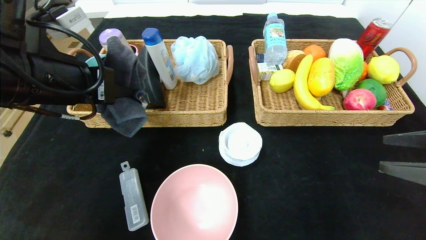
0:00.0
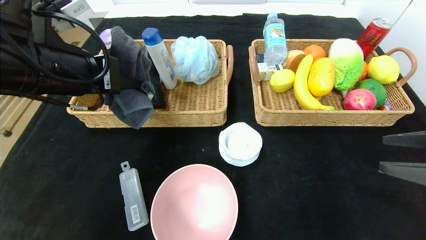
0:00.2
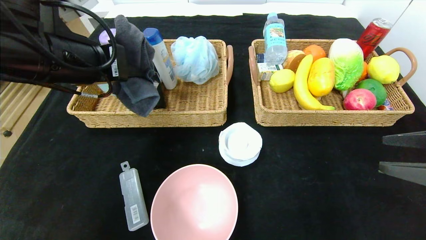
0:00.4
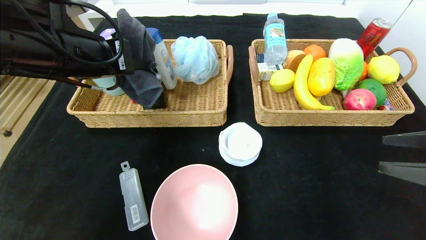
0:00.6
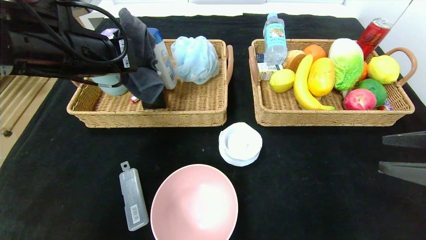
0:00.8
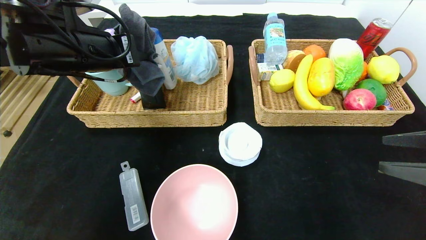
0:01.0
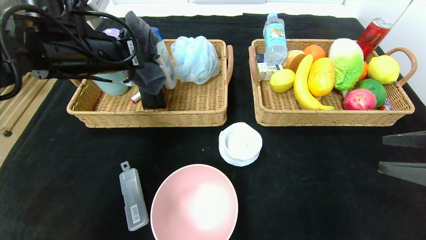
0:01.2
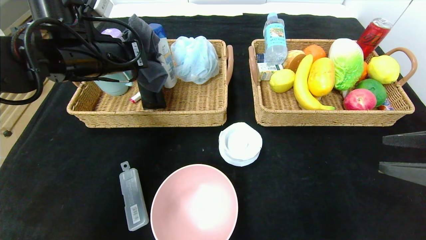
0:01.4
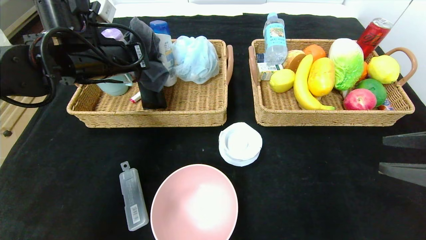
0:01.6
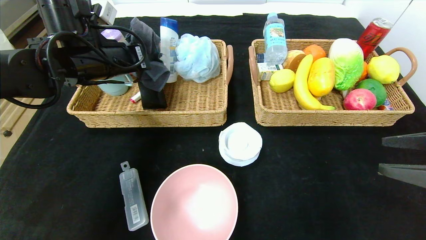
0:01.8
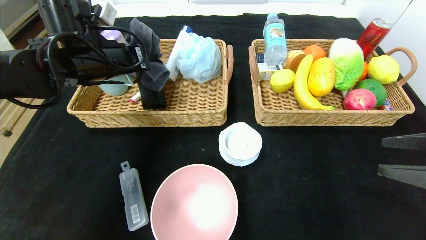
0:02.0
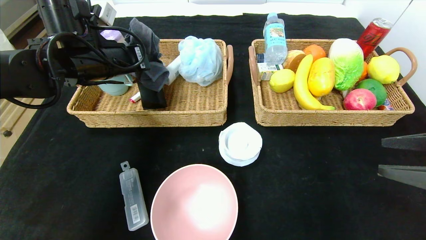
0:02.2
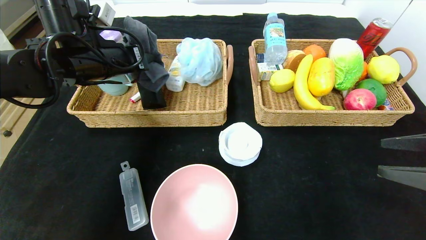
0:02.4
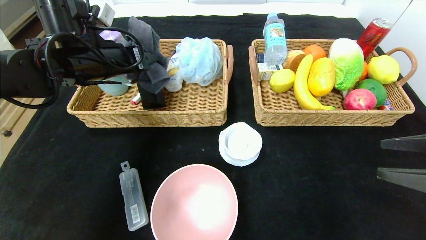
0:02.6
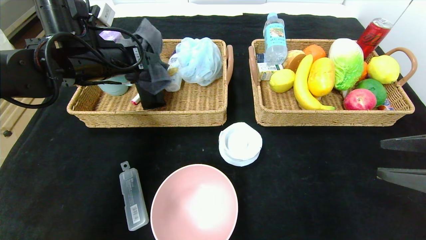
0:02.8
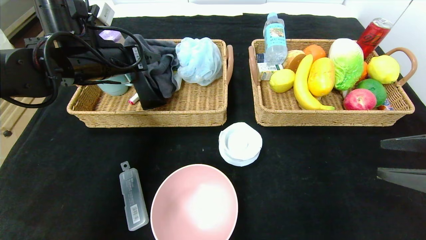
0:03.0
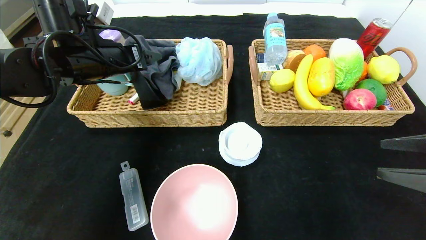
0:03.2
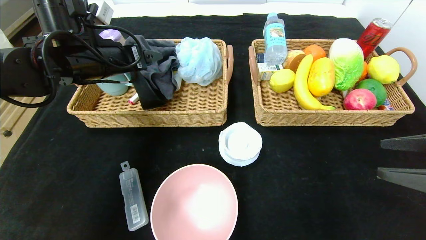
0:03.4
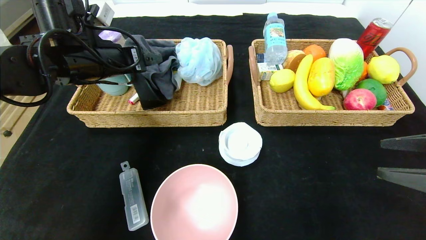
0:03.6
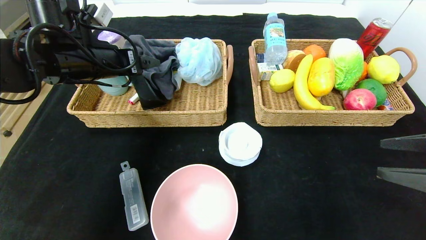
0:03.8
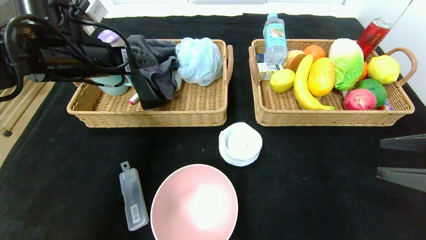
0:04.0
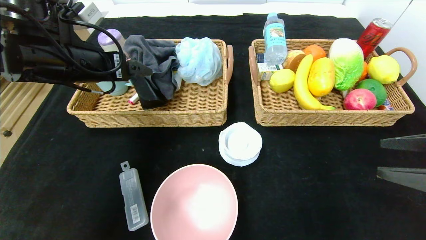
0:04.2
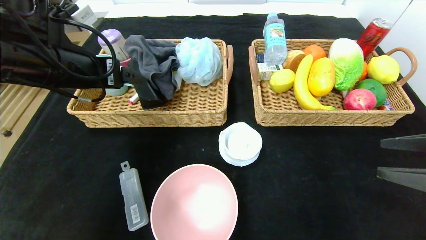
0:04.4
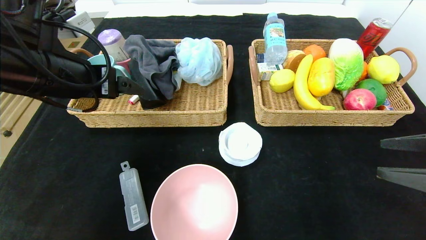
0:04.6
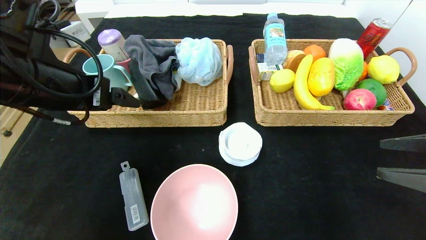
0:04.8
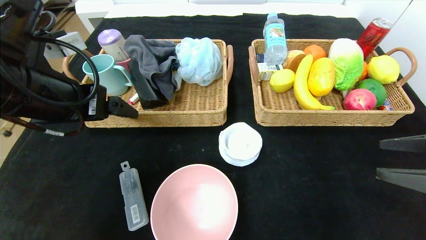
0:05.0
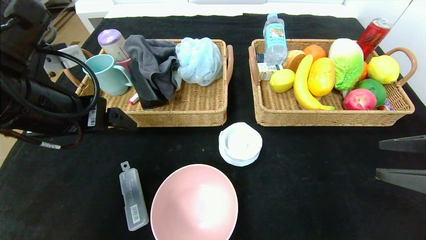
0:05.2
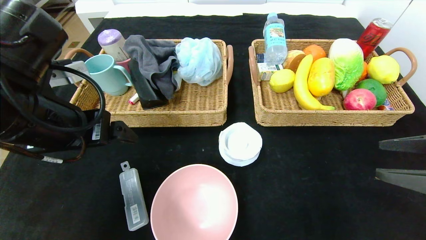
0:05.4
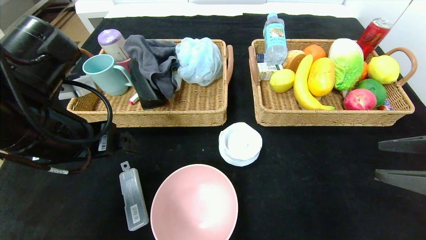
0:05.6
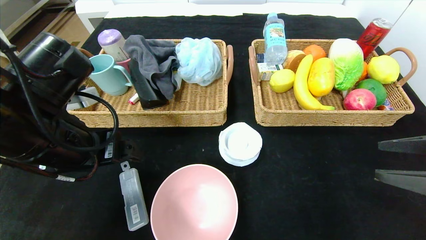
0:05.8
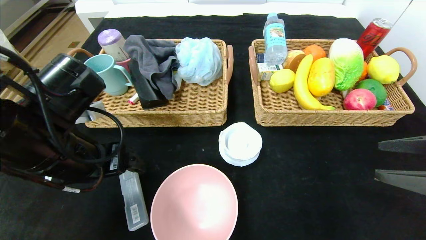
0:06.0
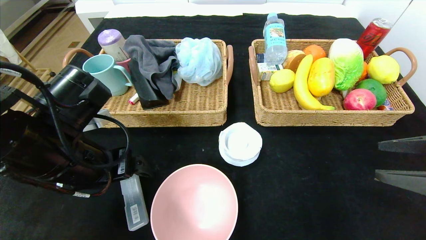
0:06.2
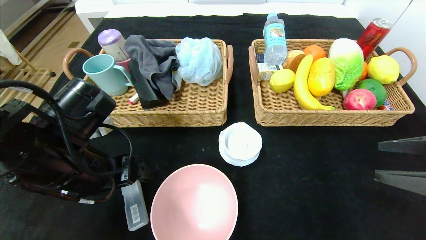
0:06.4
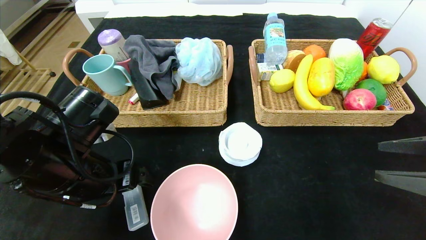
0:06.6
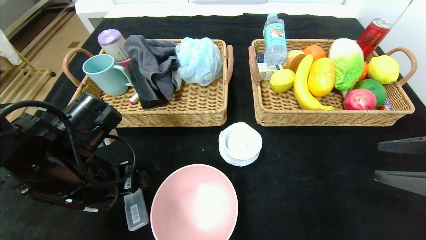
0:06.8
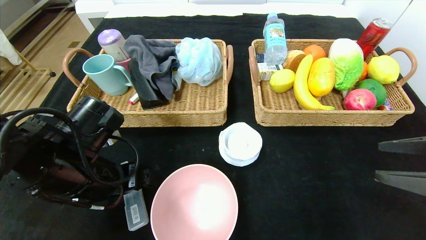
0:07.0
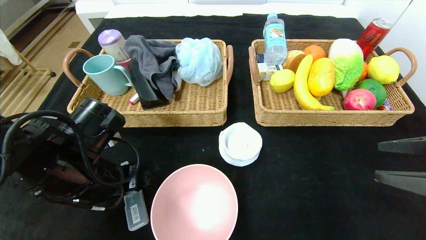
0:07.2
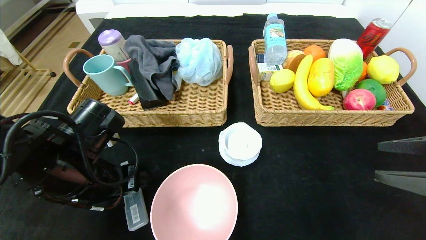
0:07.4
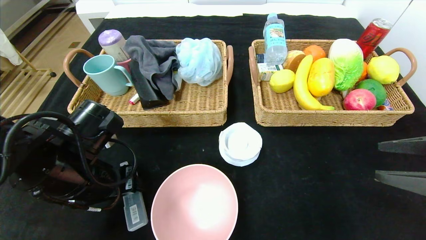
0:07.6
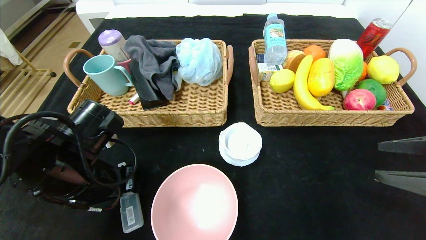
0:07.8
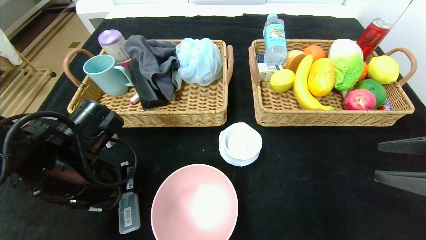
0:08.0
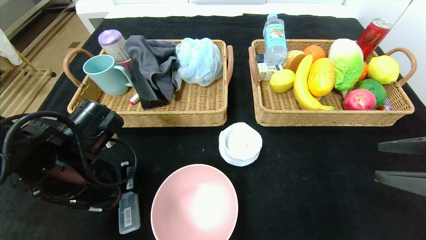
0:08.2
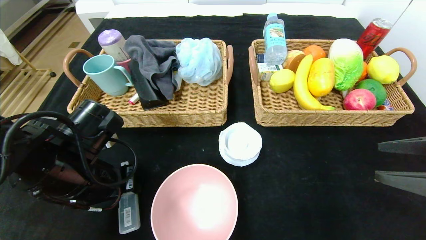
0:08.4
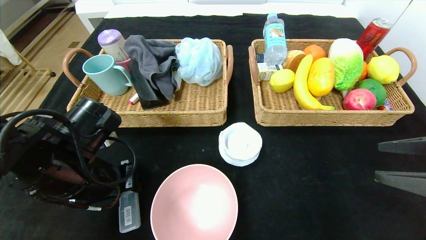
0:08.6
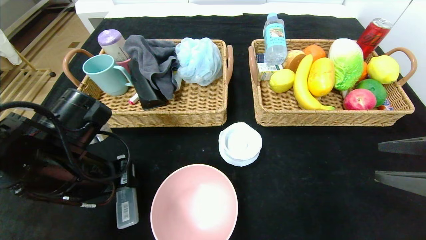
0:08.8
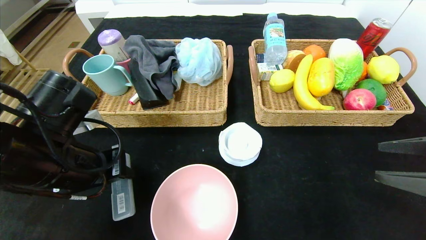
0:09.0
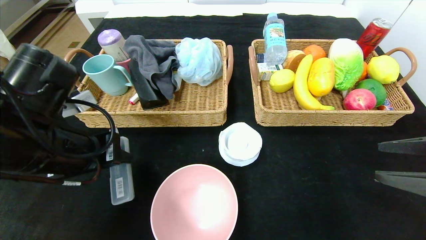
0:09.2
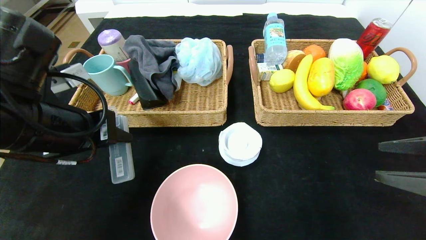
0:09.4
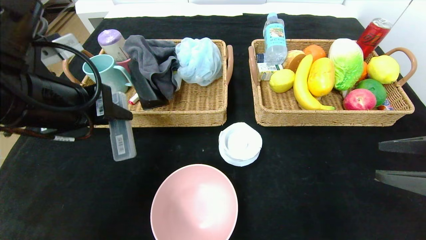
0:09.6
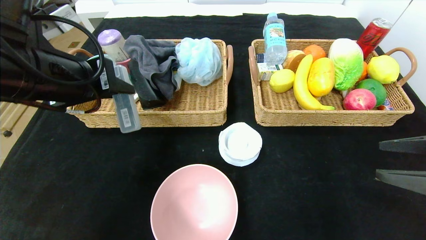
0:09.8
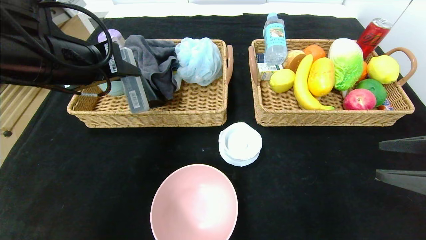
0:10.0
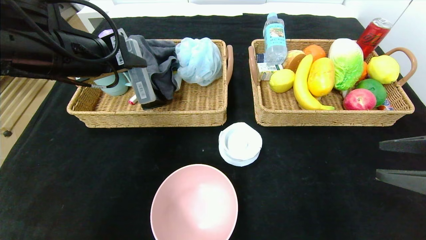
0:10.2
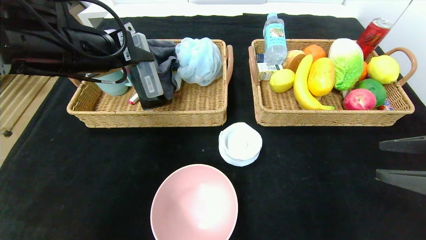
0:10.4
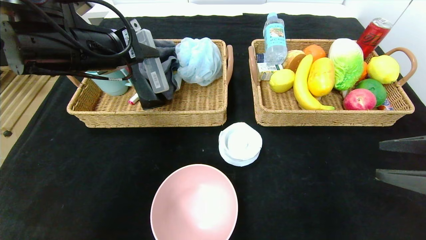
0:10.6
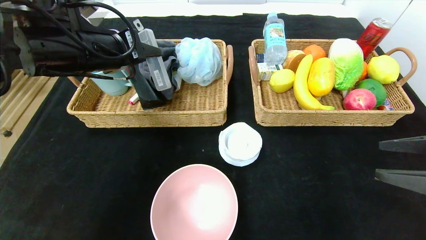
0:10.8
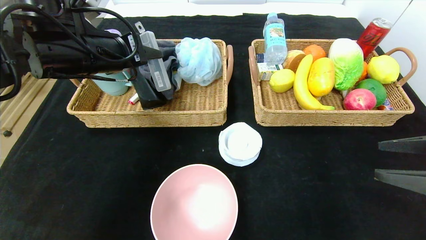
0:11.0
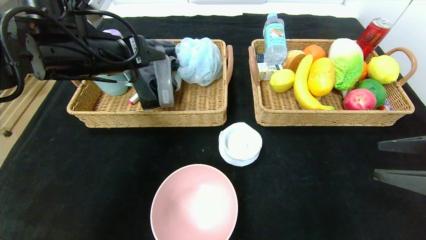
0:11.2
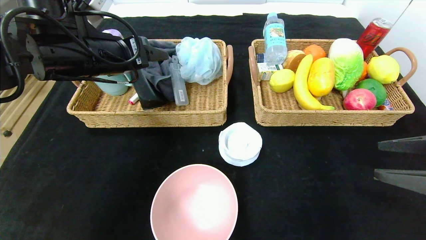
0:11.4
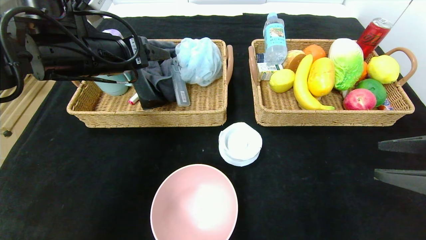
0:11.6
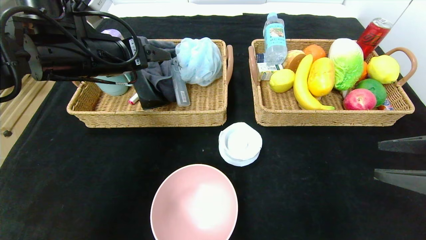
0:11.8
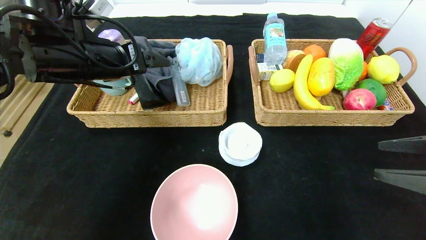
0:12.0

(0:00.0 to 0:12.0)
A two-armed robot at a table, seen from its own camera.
Step, 0:00.0 - 0:05.4: Pick up the gray towel and put it in the left basket.
0:00.0 - 0:01.6: The left gripper travels forward by about 10 cm.
0:01.6 - 0:03.0: The left gripper opens up.
0:03.0 - 0:04.4: The left gripper shifts roughly 10 cm backward.
0:04.4 - 0:06.0: The left gripper goes roughly 10 cm downward and backward.
0:06.0 - 0:07.6: The left gripper goes roughly 5 cm downward, and closes its fingers.
0:07.6 - 0:09.0: The grippers stay close to where they were, moving slightly.
0:09.0 - 0:10.4: The left gripper travels upward and forward by some 15 cm.
0:10.4 - 0:12.0: The left gripper opens.

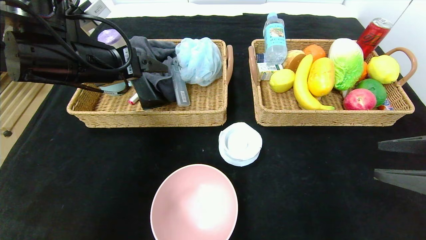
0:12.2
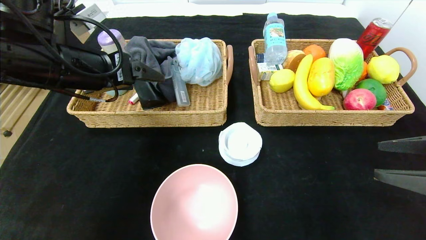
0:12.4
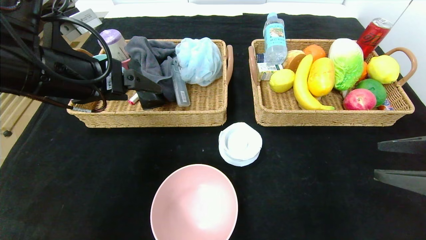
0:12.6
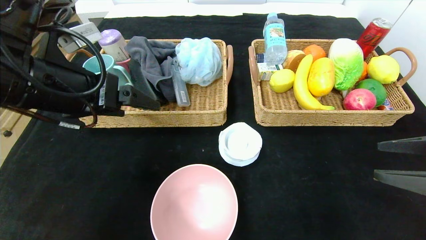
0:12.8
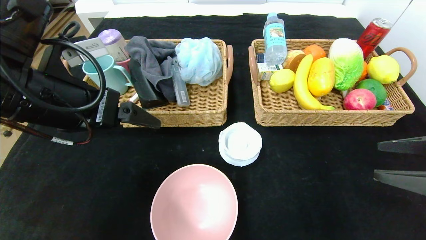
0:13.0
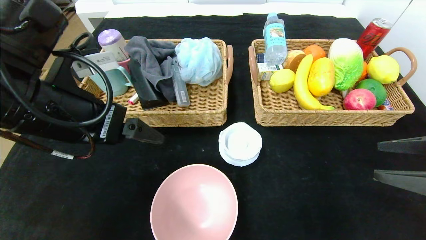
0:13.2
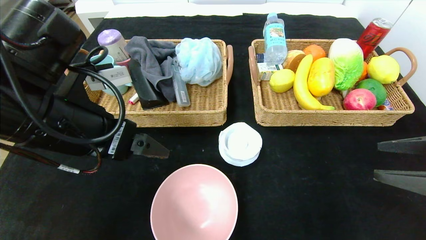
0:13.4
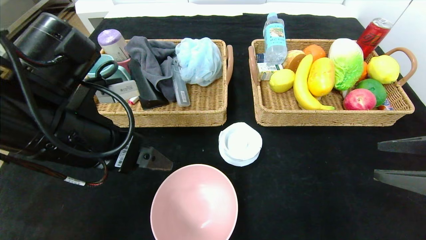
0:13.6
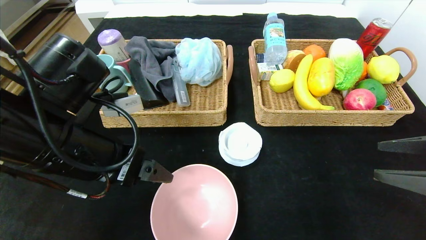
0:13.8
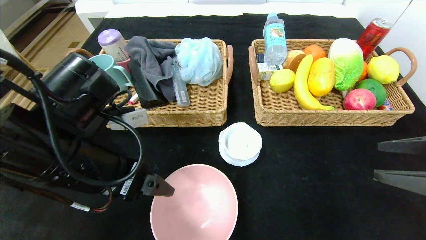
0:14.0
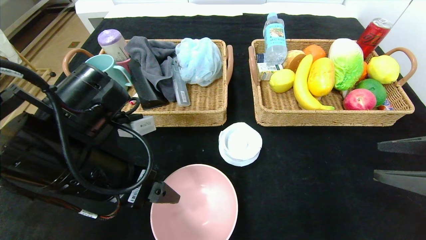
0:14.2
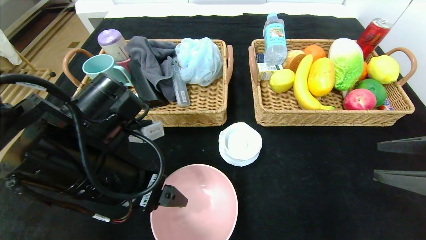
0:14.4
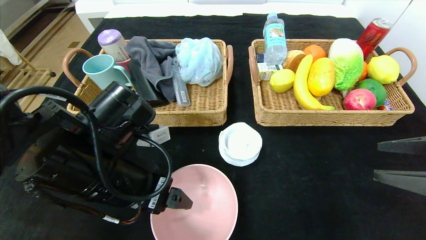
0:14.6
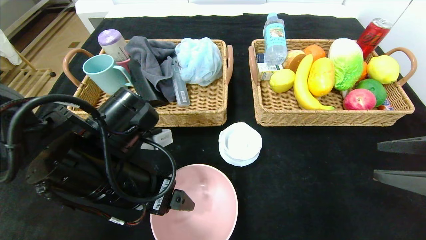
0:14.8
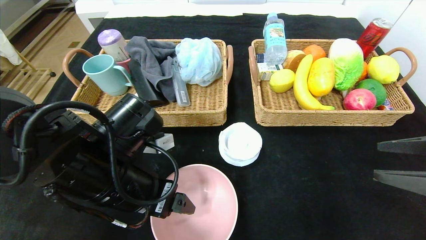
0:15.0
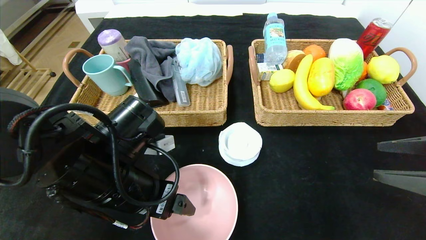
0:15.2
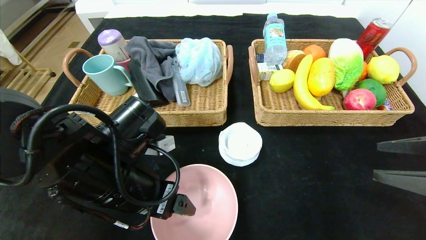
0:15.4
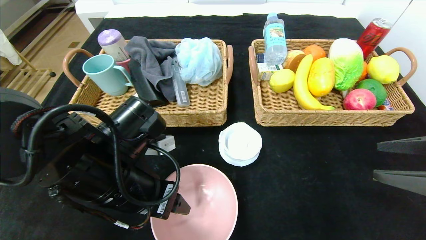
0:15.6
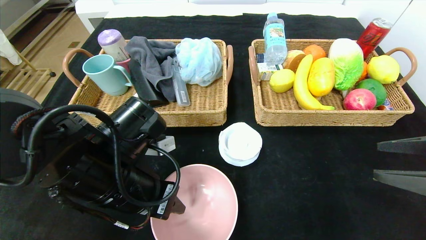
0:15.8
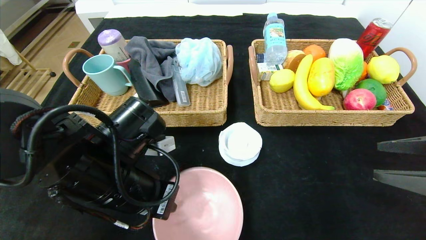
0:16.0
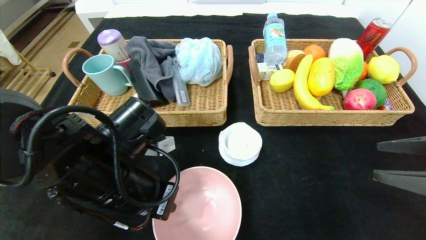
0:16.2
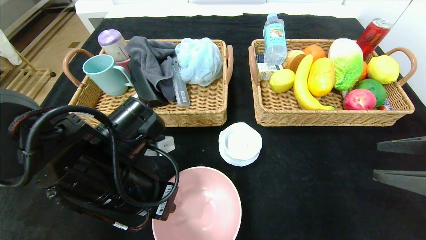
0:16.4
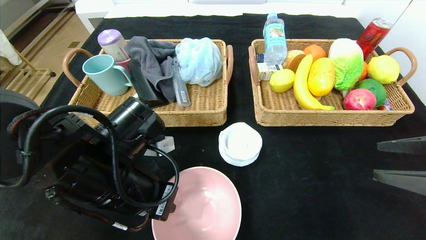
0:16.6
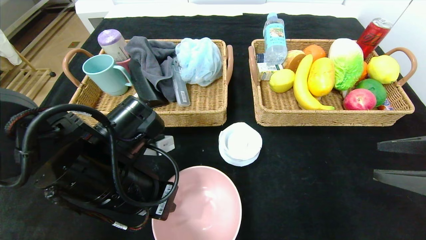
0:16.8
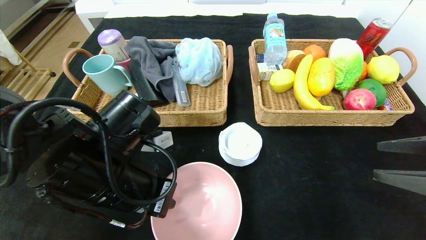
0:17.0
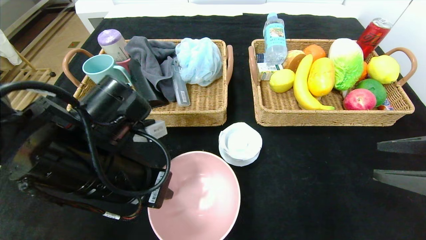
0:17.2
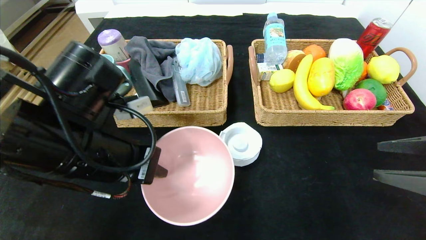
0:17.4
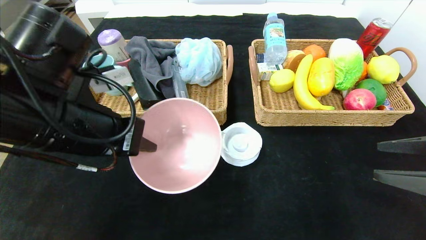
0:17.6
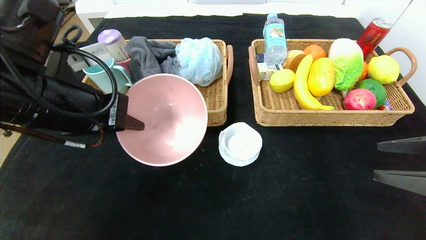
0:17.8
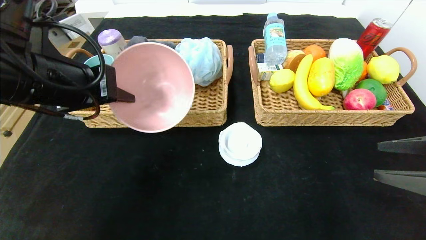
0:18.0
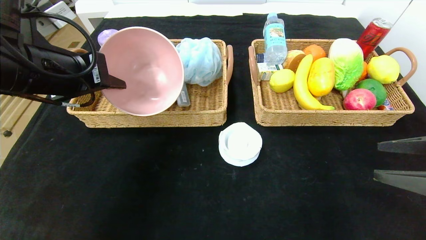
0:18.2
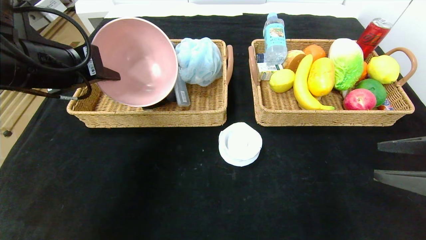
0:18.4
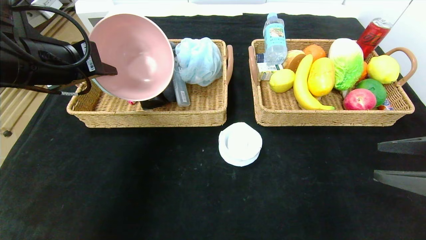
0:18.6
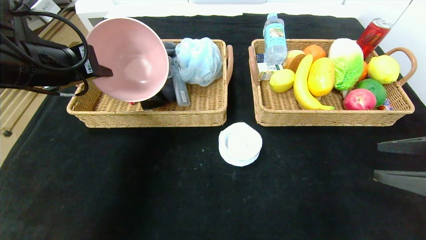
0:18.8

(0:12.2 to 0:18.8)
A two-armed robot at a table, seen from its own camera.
0:12.2 - 0:13.8: The left gripper goes about 10 cm backward and downward.
0:13.8 - 0:15.4: The left gripper is displaced downward by roughly 5 cm.
0:15.4 - 0:17.2: The left gripper closes up.
0:17.2 - 0:18.8: The left gripper is displaced to the left, upward and forward by about 15 cm.
